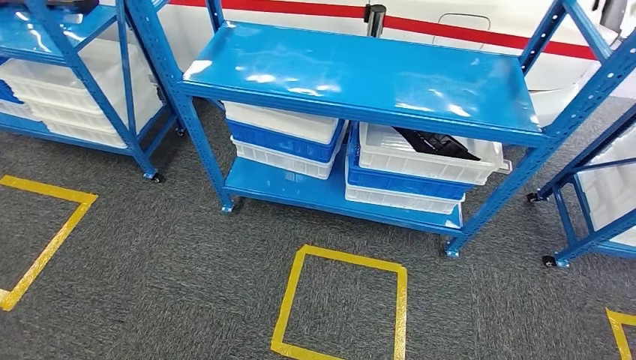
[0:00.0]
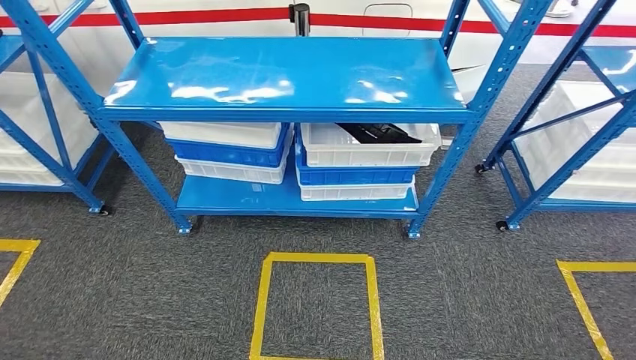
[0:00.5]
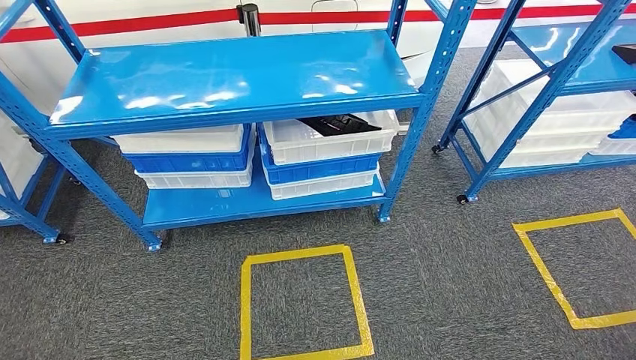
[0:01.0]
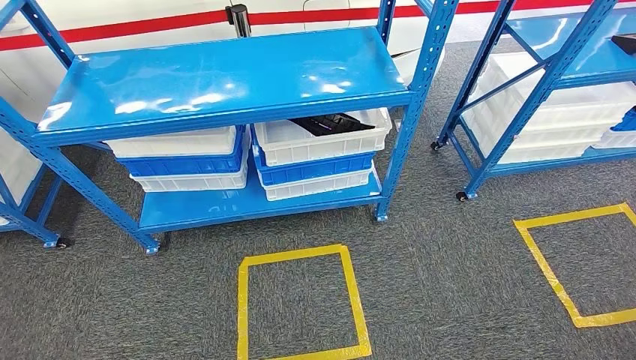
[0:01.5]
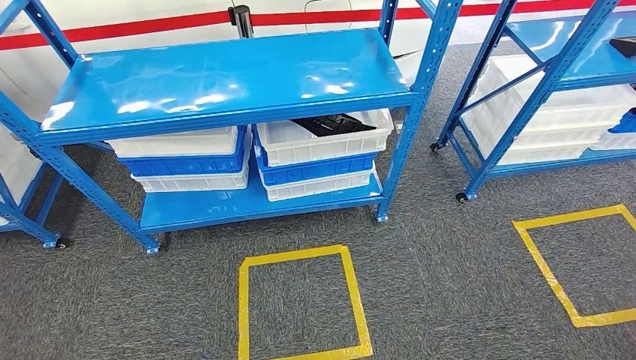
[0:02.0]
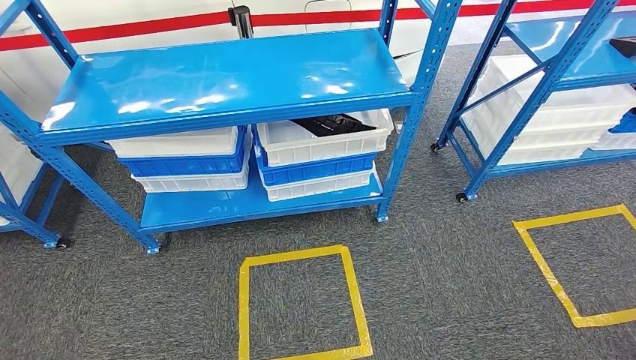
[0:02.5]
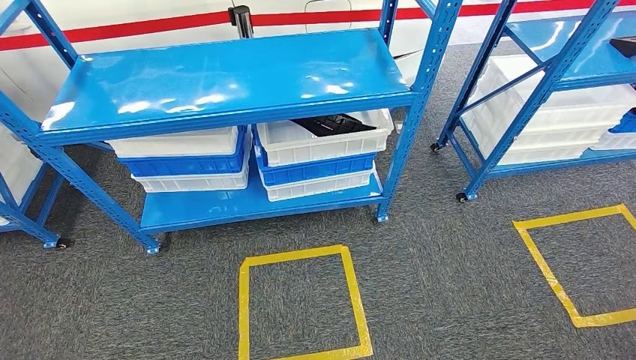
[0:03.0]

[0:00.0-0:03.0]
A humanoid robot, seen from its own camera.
Step, 0:00.0 to 0:02.5: Move to the initial position of the shelf.
0:01.5 to 0:03.0: The right hand shifts by some 5 cm.
